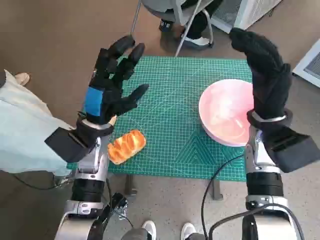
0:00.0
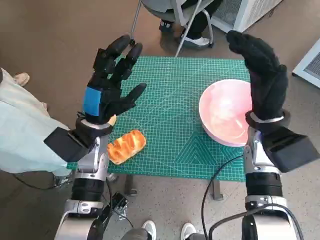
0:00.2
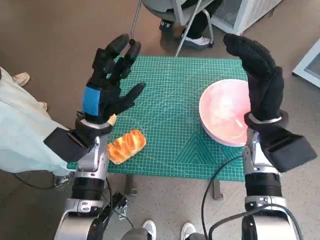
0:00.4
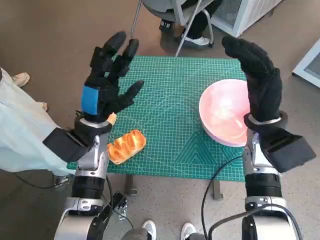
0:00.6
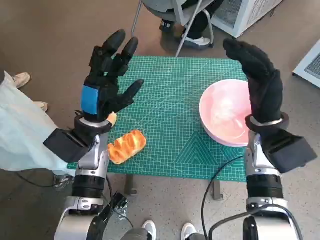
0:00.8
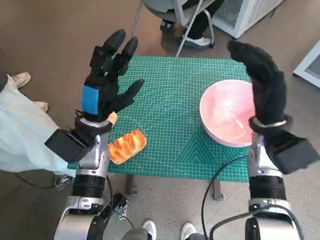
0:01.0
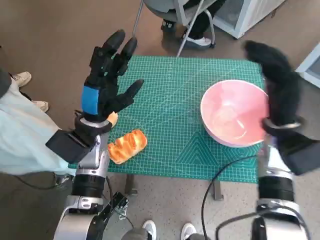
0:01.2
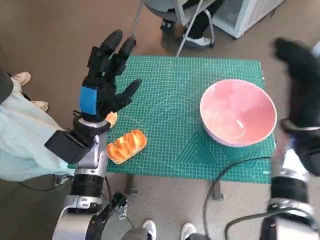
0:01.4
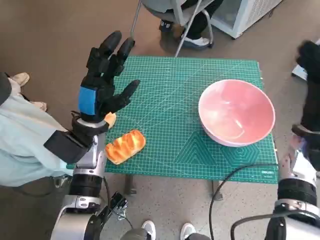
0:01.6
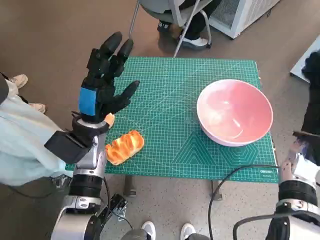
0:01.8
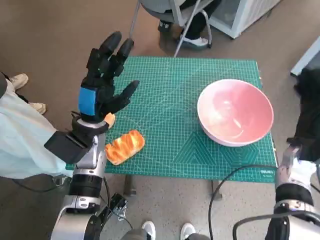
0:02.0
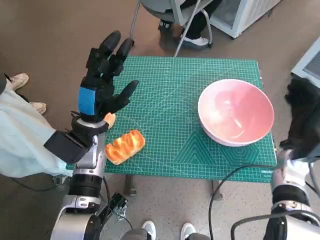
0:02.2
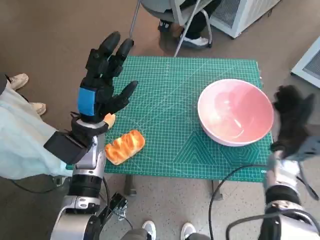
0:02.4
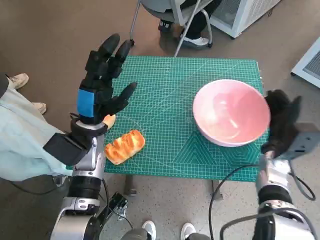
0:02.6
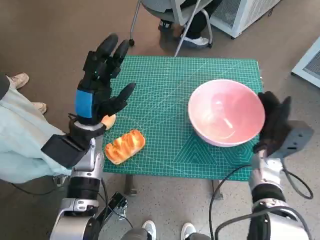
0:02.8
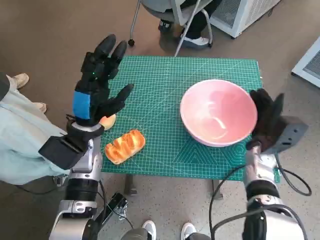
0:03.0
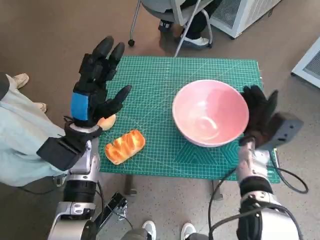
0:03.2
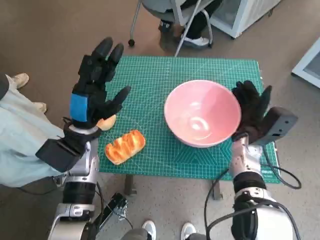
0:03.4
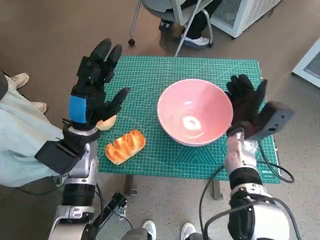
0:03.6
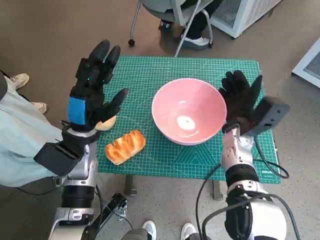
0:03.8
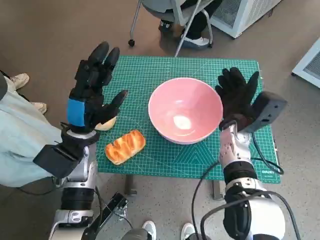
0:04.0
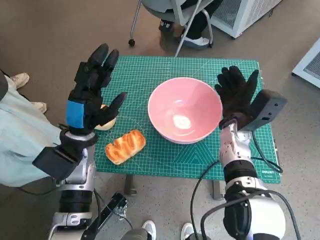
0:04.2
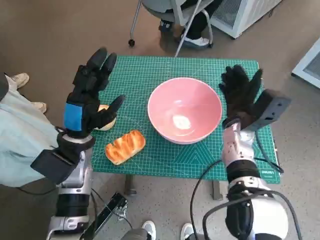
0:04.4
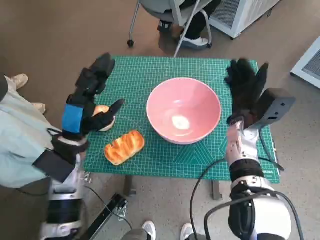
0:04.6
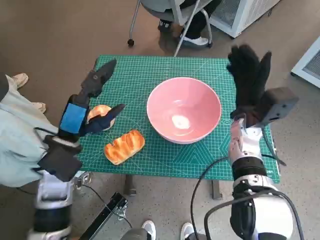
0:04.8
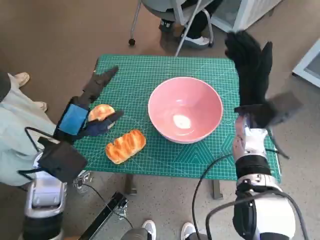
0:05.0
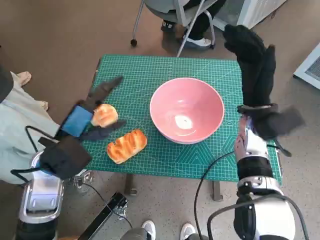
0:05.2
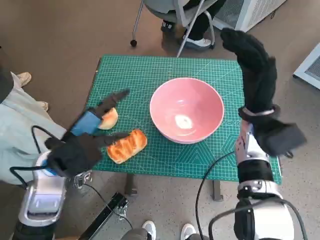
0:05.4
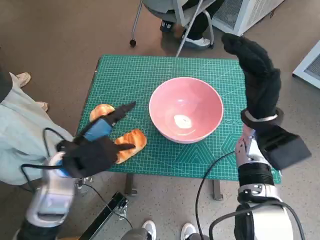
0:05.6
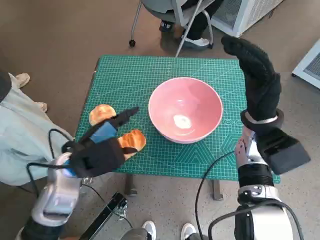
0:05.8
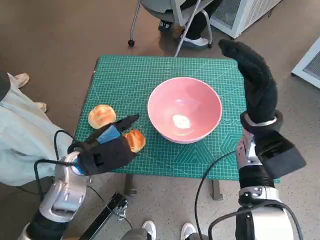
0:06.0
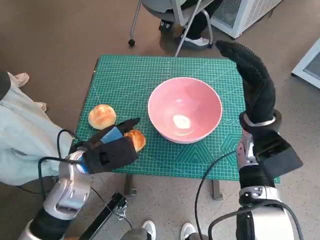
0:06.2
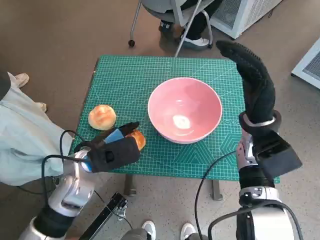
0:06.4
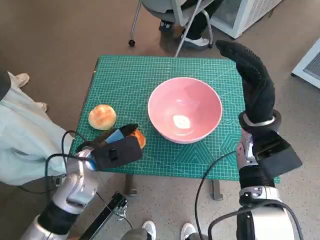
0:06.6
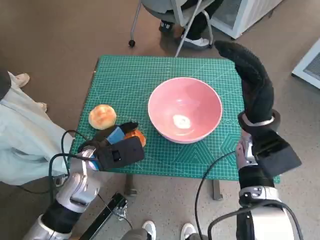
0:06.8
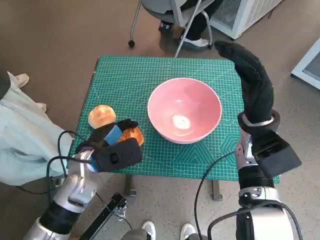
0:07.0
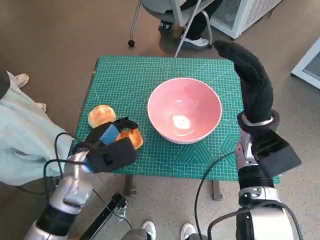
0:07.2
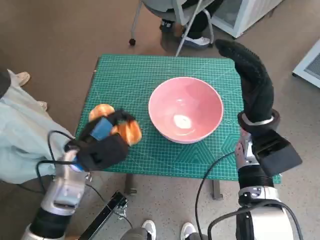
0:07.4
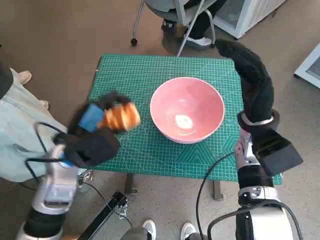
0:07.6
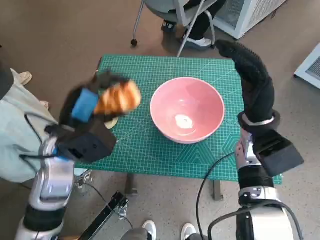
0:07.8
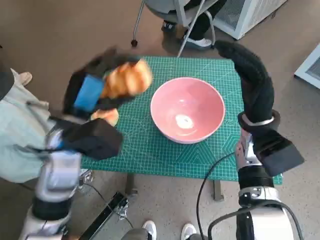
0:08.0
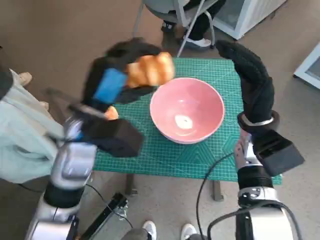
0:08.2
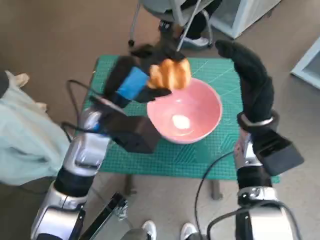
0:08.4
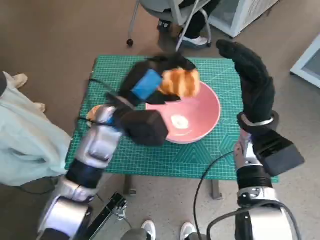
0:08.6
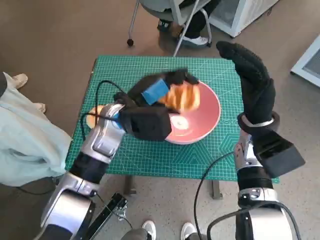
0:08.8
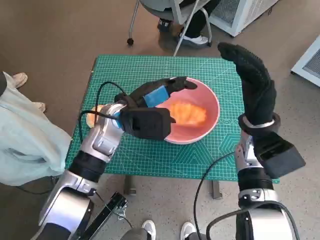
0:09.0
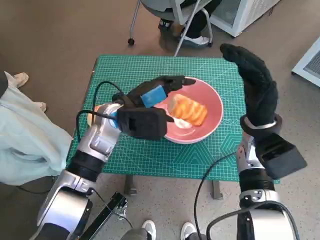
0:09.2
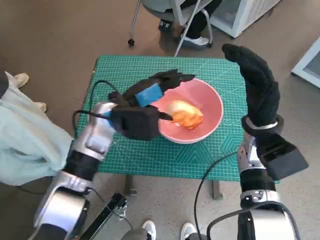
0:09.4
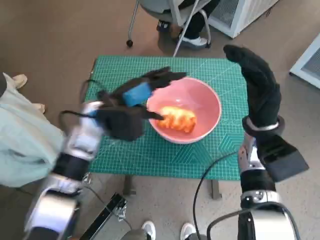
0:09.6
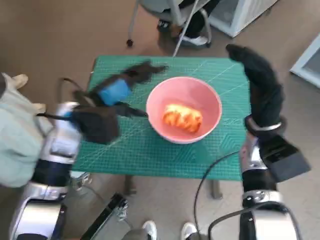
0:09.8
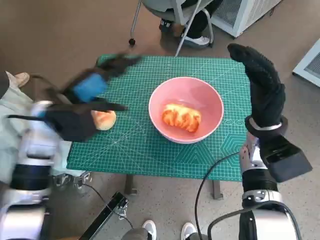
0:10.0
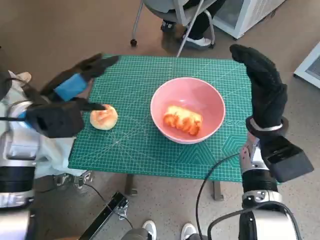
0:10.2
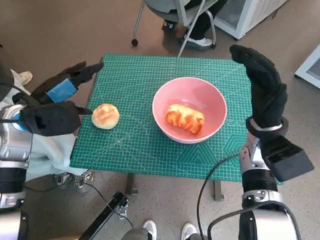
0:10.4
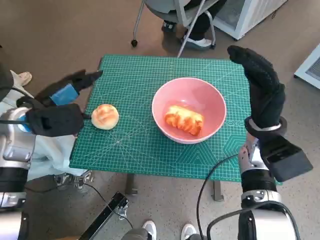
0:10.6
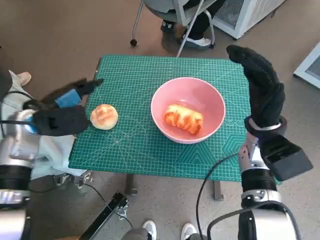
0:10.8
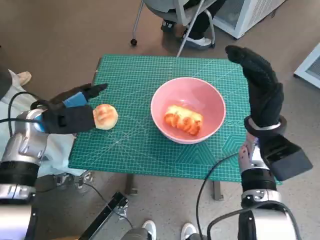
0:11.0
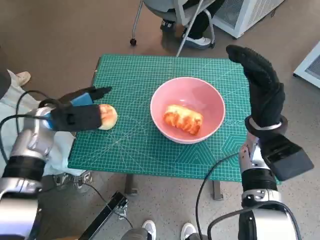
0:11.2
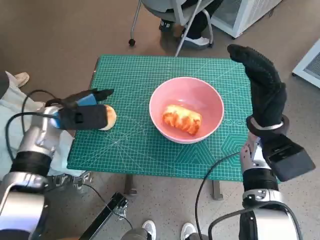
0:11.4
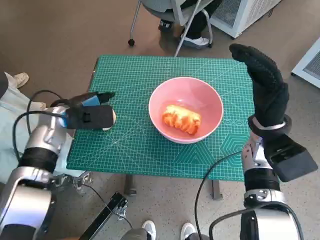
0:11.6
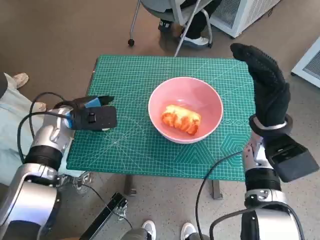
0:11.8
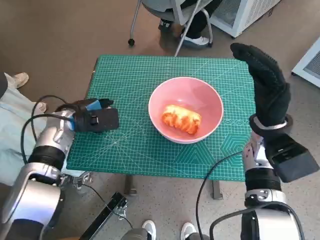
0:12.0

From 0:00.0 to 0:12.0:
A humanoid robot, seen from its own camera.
Task of the whole recording: Push the bowl to the center of the table and put the bread into the bowl.
Step, from 0:00.0 to 0:04.2: Move the pink bowl to the center of table with right hand.
Step, from 0:04.4 to 0:07.2: Grasp the long bread with left hand.
Step, from 0:07.4 to 0:08.8: Place the long bread in pink bowl with left hand.
From 0:01.6 to 0:03.0: The right hand shifts some 10 cm downward and to the left.
From 0:03.0 to 0:04.4: The right hand travels to the left by approximately 5 cm.
From 0:04.4 to 0:06.0: The right hand moves upward, roughly 5 cm.
From 0:06.0 to 0:07.6: The hands move only a little.
From 0:07.6 to 0:09.0: The left hand moves forward and to the right, some 10 cm.
From 0:09.0 to 0:10.4: The left hand moves to the left, about 15 cm.
From 0:10.4 to 0:12.0: The left hand heads downward, covering some 10 cm.

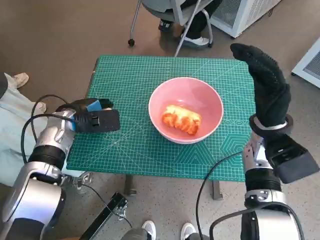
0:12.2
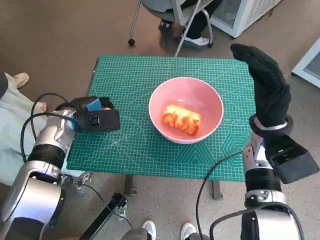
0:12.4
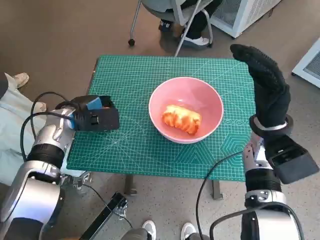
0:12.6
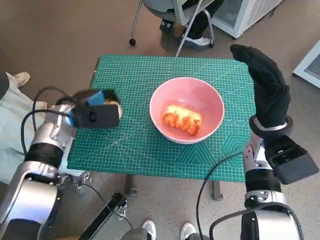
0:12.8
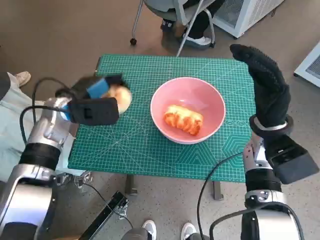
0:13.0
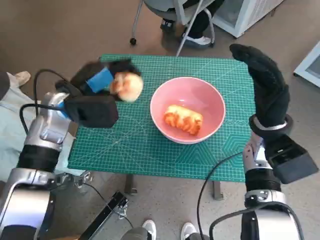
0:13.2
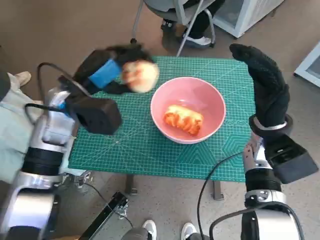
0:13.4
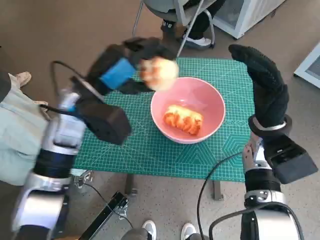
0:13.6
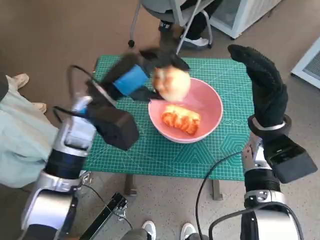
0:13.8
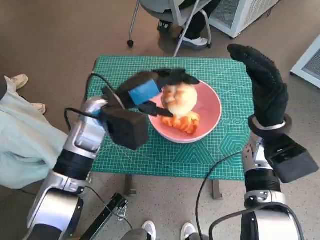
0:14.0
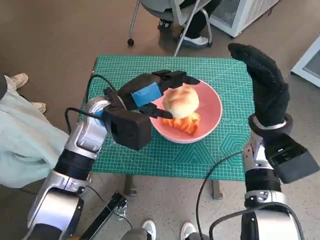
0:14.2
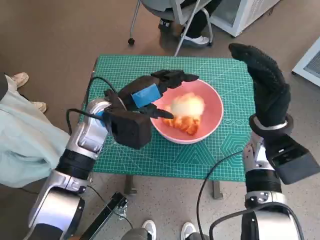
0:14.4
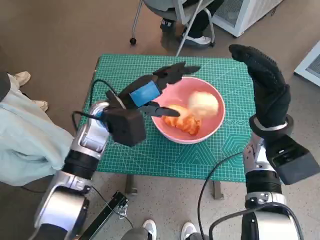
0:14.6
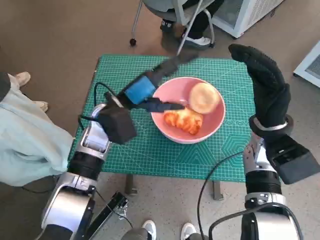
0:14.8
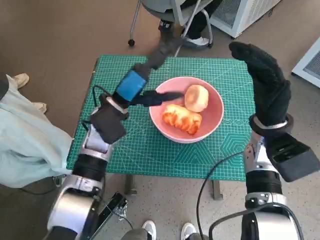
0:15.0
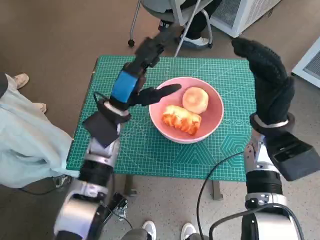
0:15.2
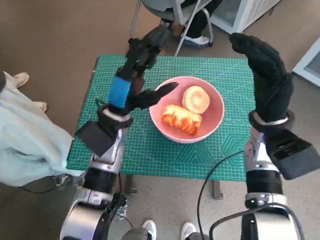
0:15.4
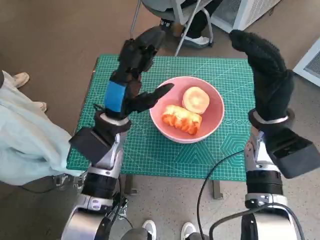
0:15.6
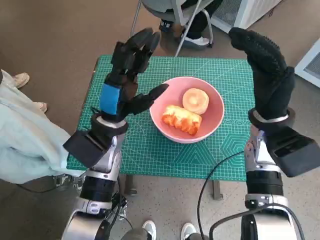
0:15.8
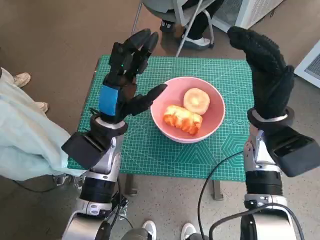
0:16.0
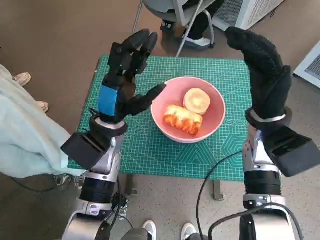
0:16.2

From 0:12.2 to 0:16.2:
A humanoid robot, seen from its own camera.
Task of the whole recording: Push the bowl to the center of the table and put the bread into the bowl.
Step, from 0:12.6 to 0:14.4: Place the round bread in pink bowl with left hand.
From 0:12.2 to 0:13.6: The left hand goes approximately 15 cm upward and to the right.
From 0:13.6 to 0:14.8: The left hand moves downward, roughly 5 cm.

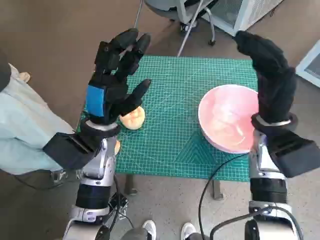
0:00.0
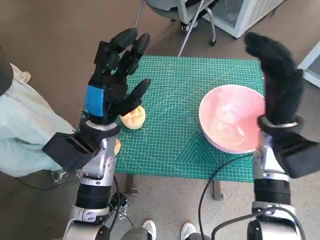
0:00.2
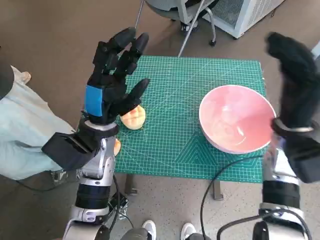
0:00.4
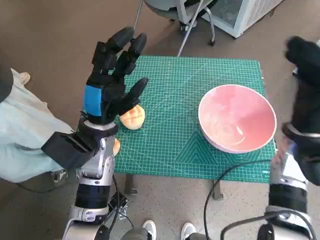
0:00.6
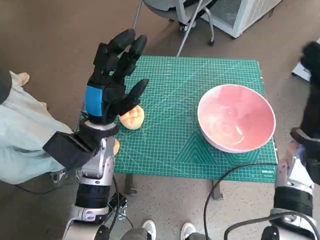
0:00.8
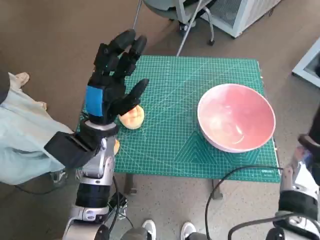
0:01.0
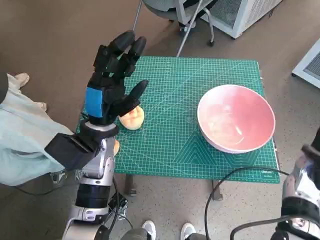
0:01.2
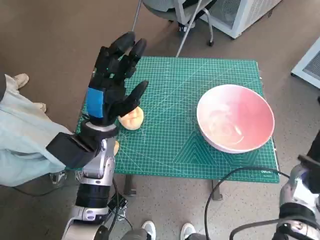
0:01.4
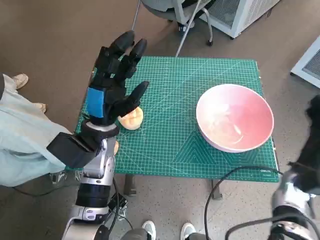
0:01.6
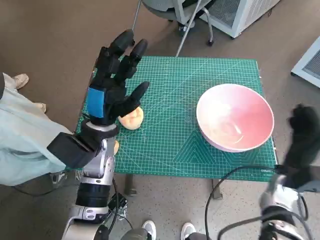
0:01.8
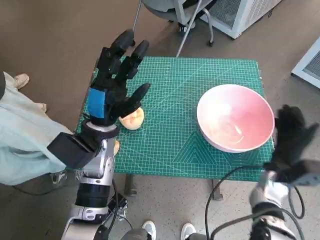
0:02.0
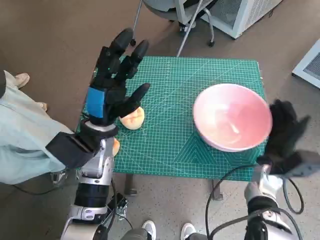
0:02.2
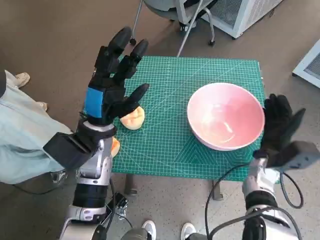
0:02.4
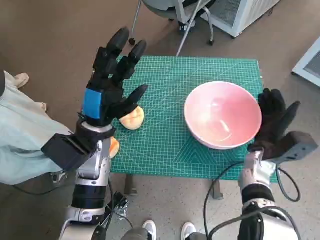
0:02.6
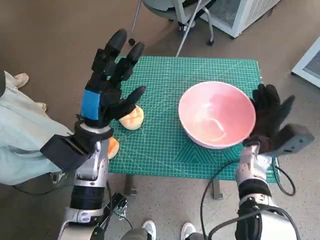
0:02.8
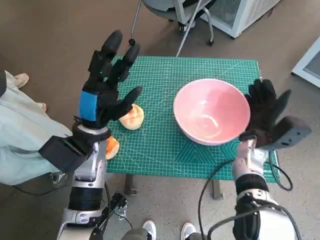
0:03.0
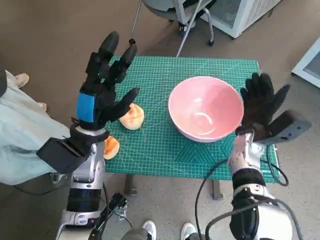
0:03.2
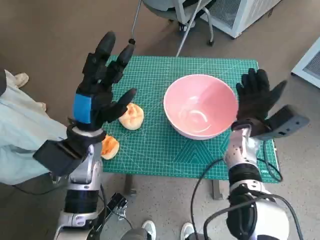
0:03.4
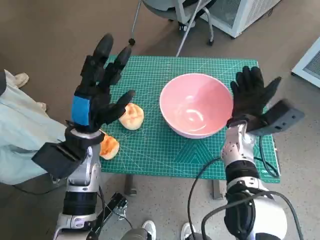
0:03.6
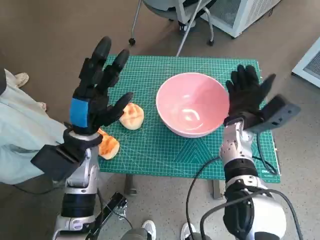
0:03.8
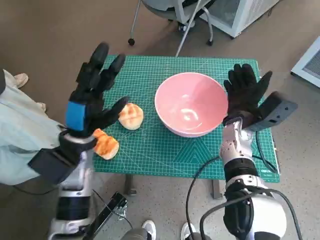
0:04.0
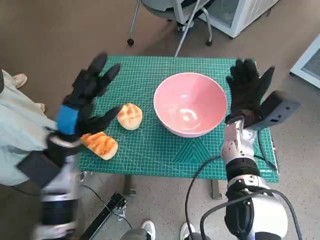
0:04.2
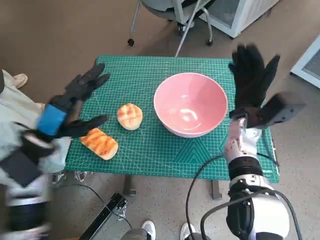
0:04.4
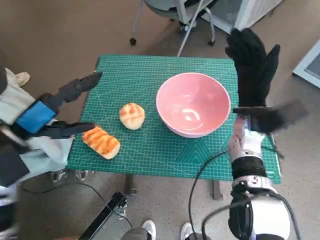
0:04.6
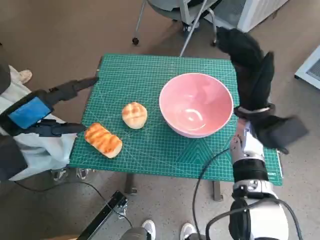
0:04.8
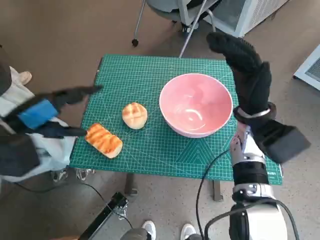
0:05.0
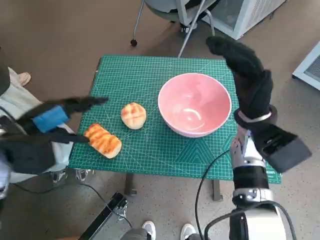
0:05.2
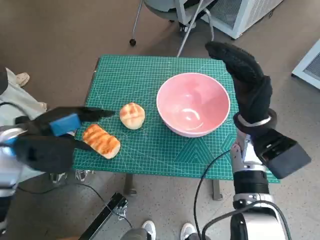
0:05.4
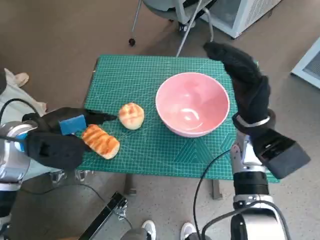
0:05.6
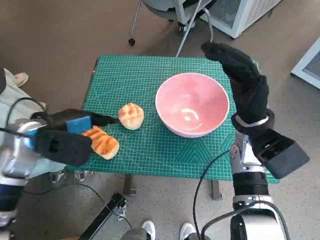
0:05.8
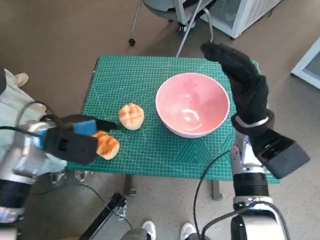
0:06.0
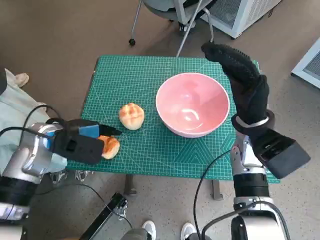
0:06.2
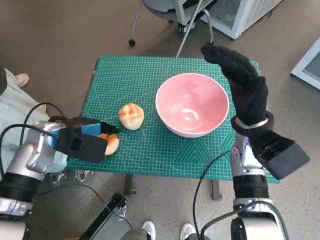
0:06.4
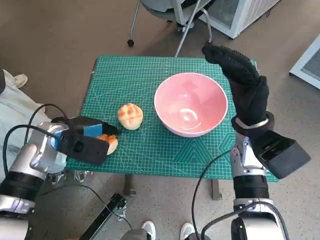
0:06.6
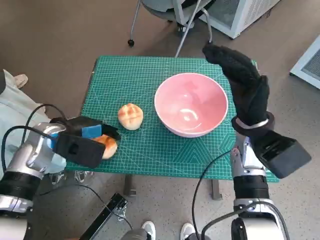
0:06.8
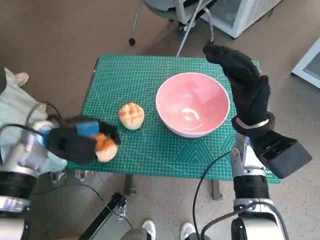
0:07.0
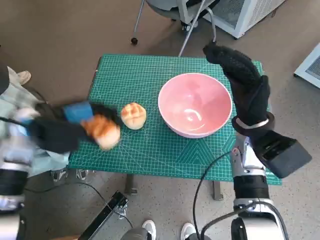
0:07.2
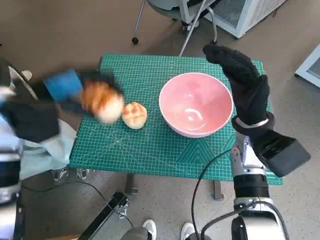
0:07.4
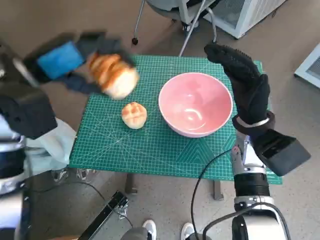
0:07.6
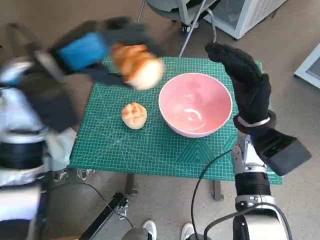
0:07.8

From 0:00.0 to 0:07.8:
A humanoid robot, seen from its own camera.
Task of the whole recording: Push the bowl to the center of the table and put the bread into the bowl.
Step, from 0:00.0 to 0:04.2: Move the pink bowl to the center of table with right hand.
Step, from 0:04.4 to 0:06.6: Grasp the long bread with left hand.
From 0:01.6 to 0:03.2: The right hand moves to the left and forward, some 10 cm.
From 0:03.2 to 0:04.6: The right hand is displaced upward by about 5 cm. The left hand is displaced to the left and upward by about 15 cm.
From 0:04.6 to 0:06.2: The left hand travels forward by about 5 cm.
From 0:06.2 to 0:07.8: The left hand travels upward by about 15 cm.
